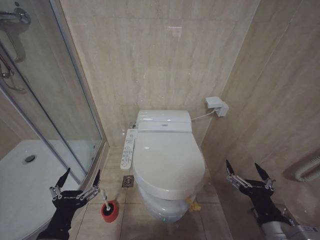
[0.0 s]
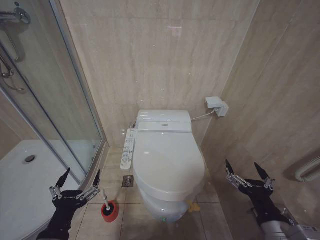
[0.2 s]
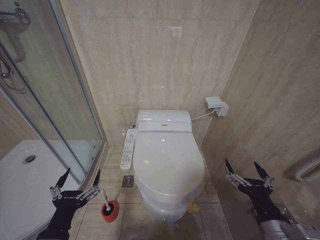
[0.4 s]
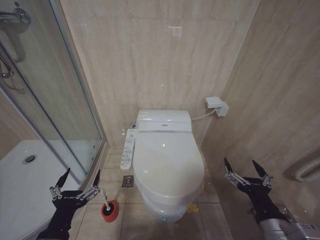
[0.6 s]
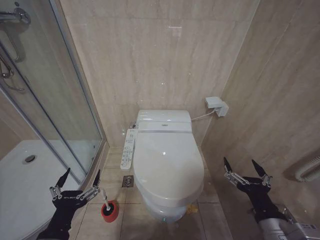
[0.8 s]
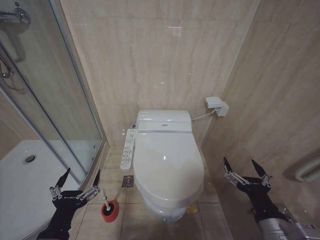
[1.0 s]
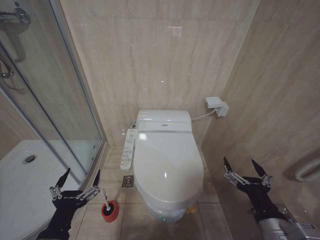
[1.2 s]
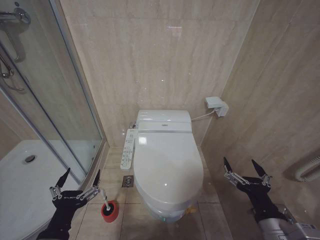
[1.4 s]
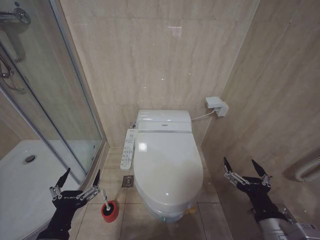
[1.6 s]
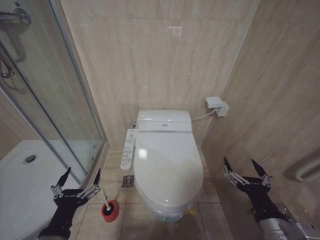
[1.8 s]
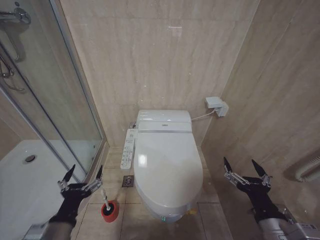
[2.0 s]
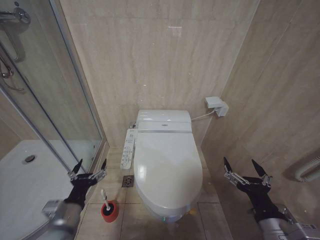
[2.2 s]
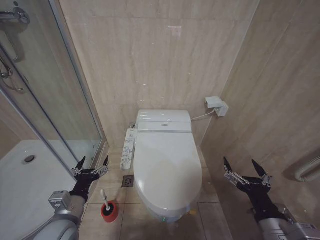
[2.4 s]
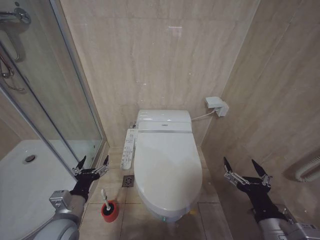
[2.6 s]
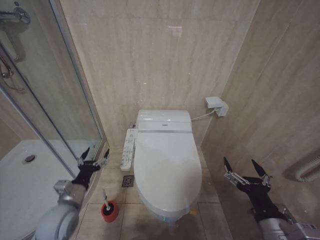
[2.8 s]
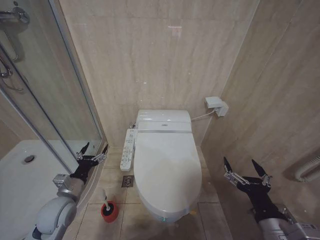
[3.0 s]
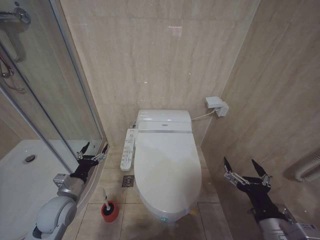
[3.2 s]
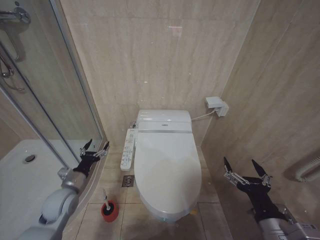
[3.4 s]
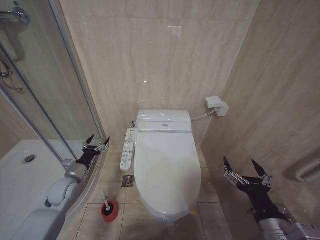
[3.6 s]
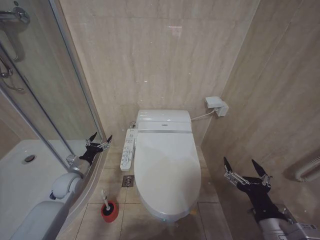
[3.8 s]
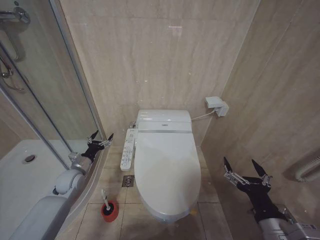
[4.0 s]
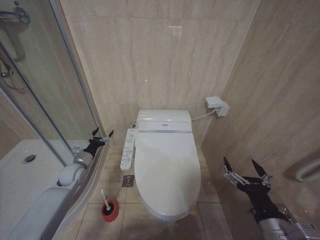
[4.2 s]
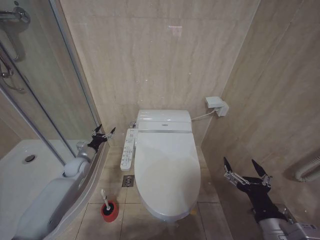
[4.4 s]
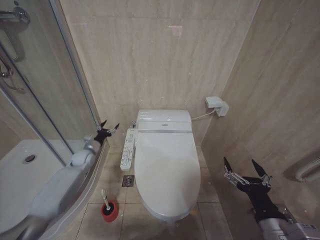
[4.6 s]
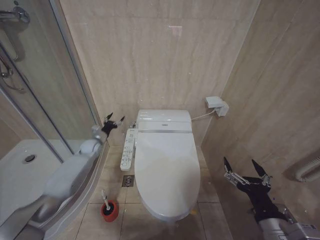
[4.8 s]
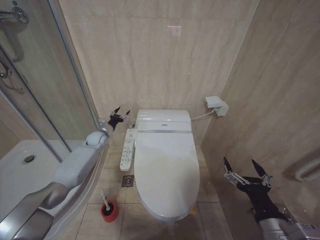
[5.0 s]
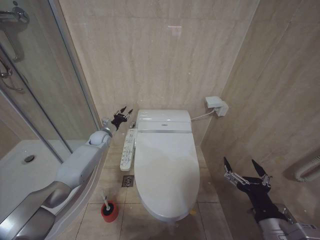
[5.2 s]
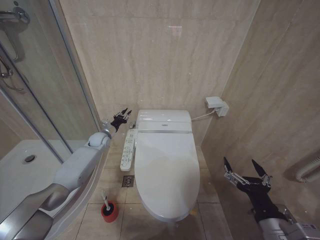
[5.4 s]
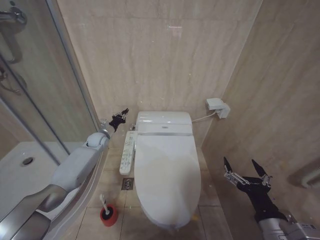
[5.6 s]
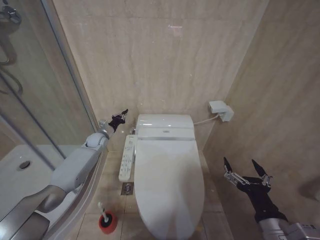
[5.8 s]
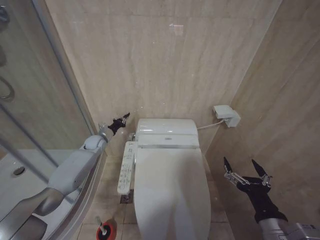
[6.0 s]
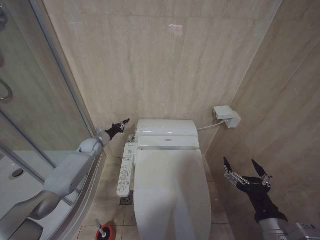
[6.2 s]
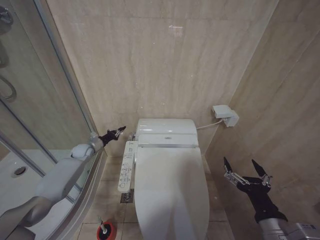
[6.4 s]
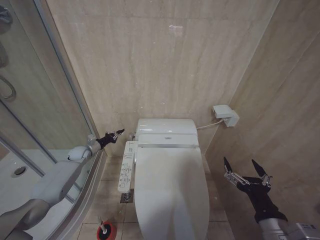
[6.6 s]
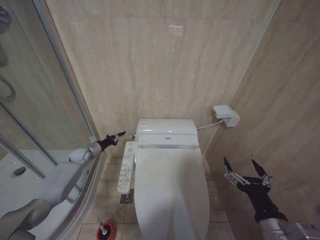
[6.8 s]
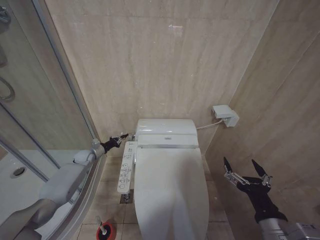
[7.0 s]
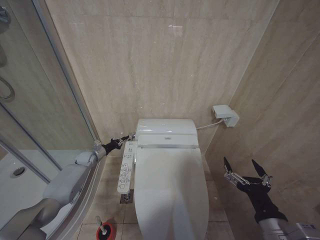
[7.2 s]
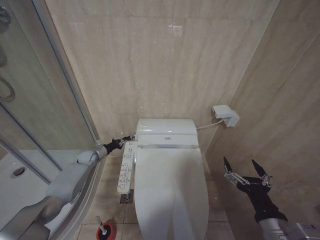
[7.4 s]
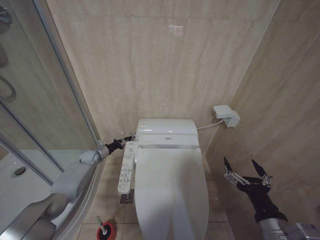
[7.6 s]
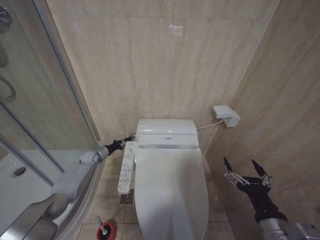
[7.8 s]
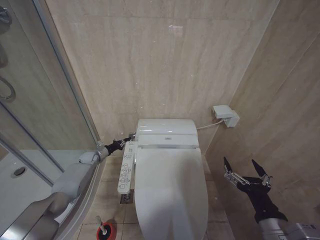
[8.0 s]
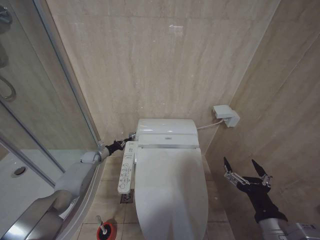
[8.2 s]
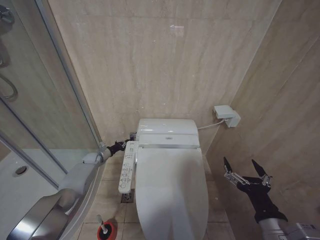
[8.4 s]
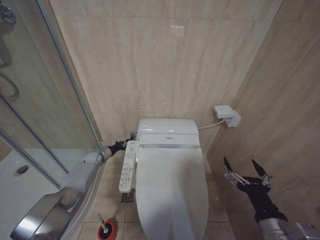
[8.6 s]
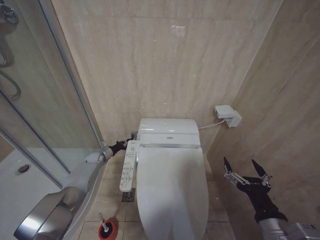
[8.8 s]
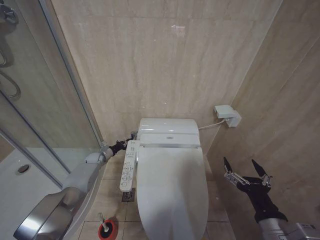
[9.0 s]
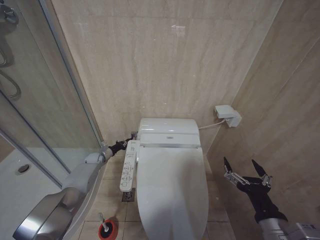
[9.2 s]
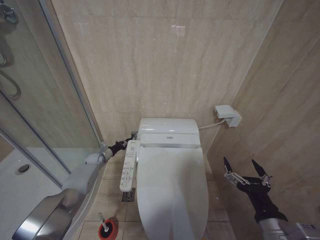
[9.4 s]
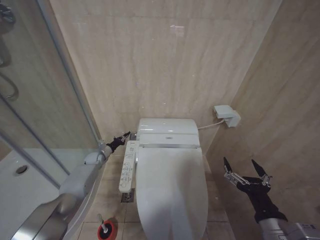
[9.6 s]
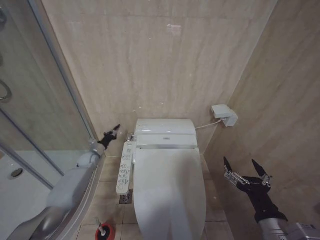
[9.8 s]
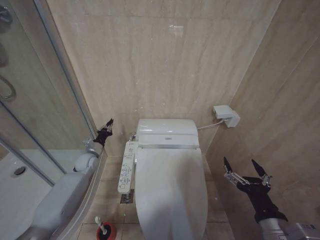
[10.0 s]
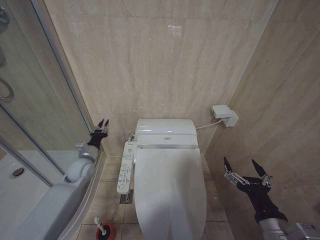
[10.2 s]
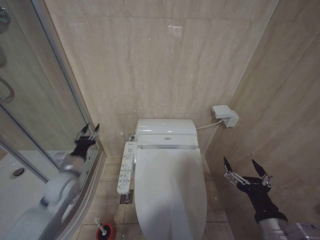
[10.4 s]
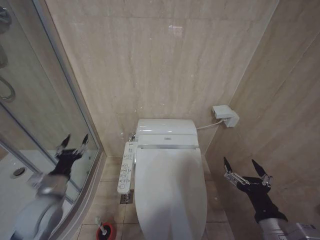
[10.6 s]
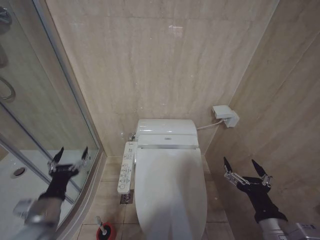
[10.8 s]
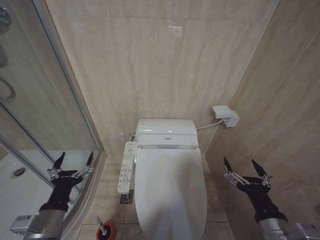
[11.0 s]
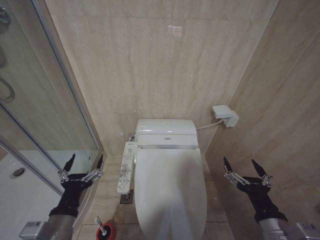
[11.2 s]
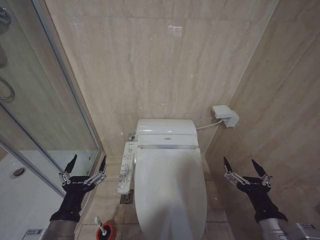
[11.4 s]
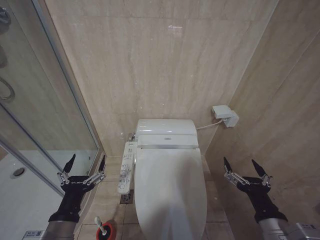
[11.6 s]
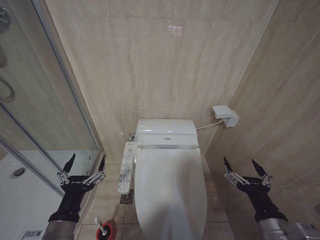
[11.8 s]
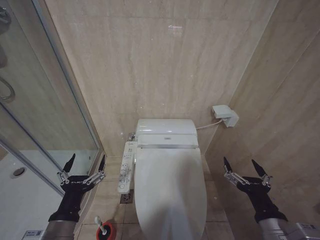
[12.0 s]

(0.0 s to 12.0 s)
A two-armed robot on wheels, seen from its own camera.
Task of the whole recording: Open the toilet lid, clean the toilet bowl with a toilet brush, close the toilet lid, and flush.
0.0 s - 1.6 s: Both grippers stay about where they are.
1.6 s - 3.0 s: The left gripper shifts some 15 cm forward.
3.0 s - 4.4 s: The left gripper is displaced forward by about 20 cm.
4.4 s - 6.0 s: The left gripper moves forward, to the right and upward, about 15 cm, and closes its fingers.
6.0 s - 7.6 s: The left gripper goes approximately 10 cm downward and to the left.
7.6 s - 9.0 s: The grippers make only small movements.
9.0 s - 10.4 s: The left gripper goes approximately 25 cm backward and upward.
10.4 s - 12.0 s: The left gripper heads backward, covering some 25 cm, and opens its fingers.

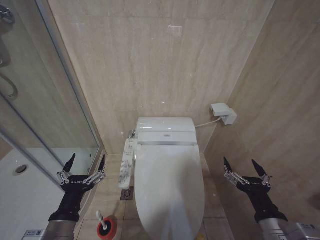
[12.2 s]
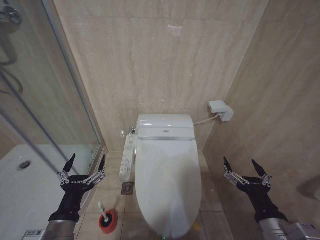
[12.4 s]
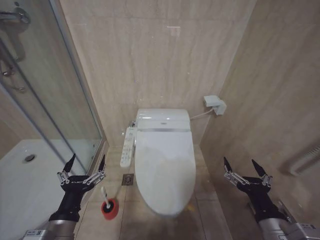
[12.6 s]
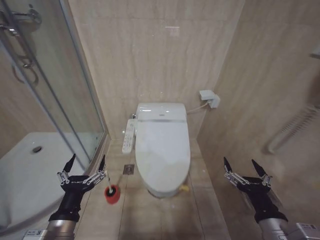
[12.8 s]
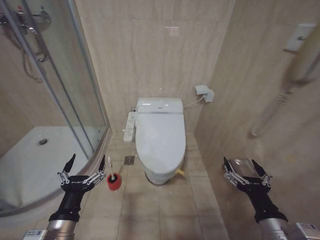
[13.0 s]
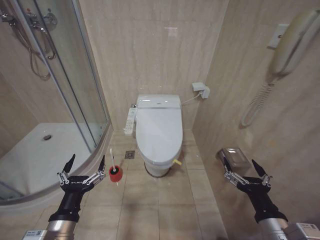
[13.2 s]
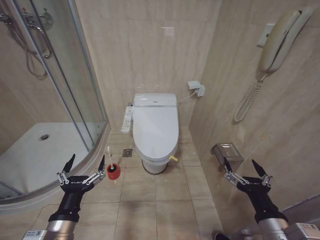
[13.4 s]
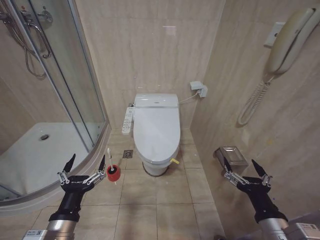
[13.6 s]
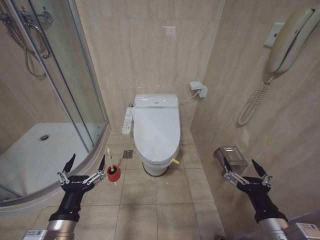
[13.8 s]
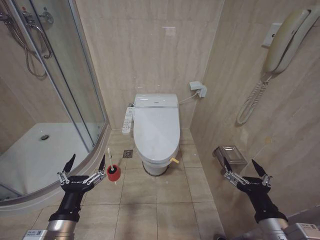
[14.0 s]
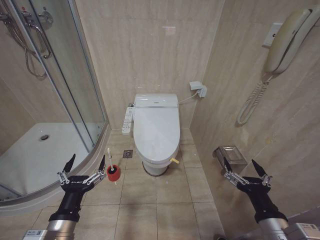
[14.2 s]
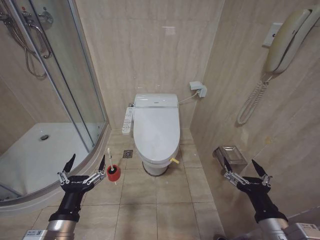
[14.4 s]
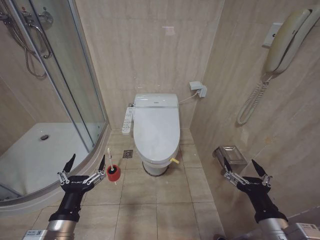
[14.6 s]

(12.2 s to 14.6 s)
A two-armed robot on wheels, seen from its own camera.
Task of the whole recording: Open the toilet lid, clean the toilet bowl with a toilet brush, close the toilet lid, and flush.
13.4 s - 14.6 s: Both grippers stay put.

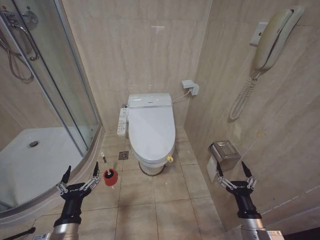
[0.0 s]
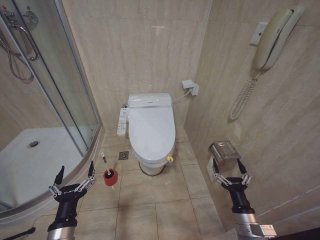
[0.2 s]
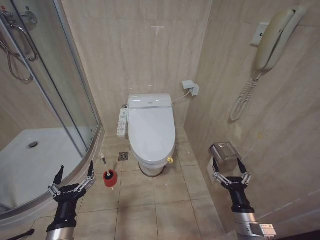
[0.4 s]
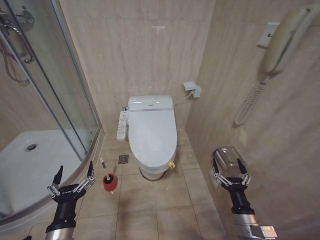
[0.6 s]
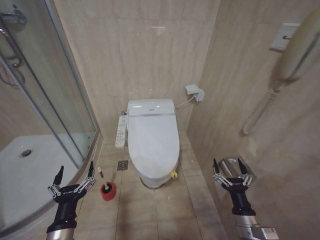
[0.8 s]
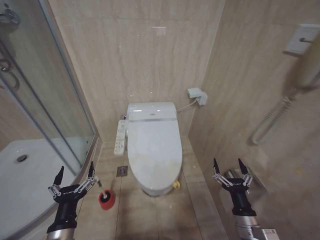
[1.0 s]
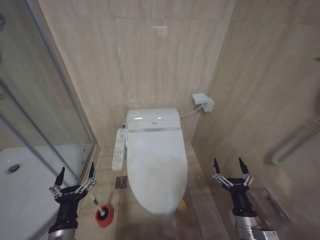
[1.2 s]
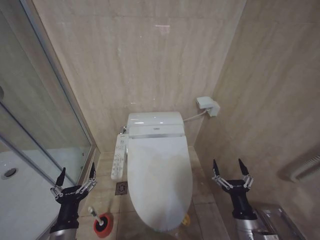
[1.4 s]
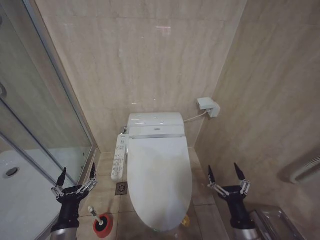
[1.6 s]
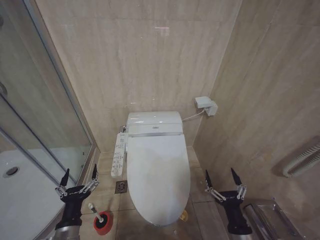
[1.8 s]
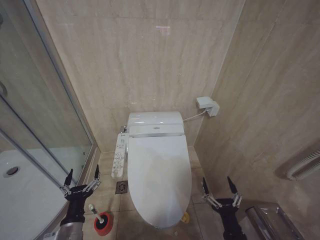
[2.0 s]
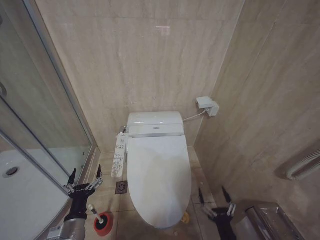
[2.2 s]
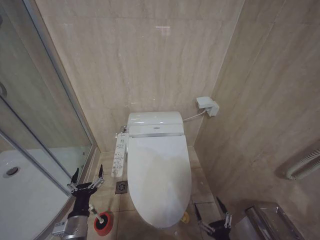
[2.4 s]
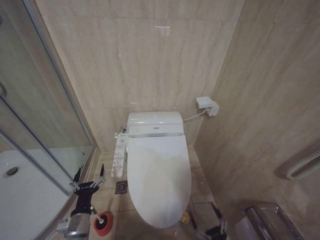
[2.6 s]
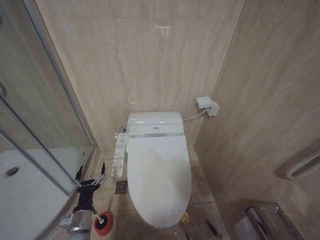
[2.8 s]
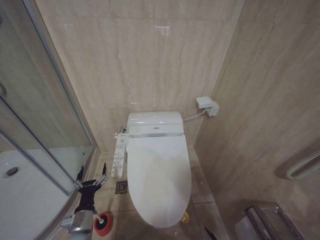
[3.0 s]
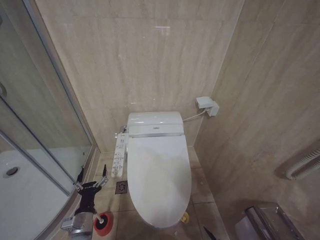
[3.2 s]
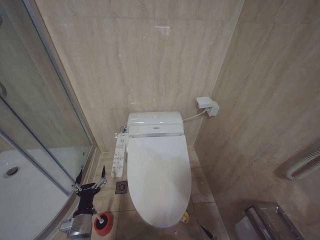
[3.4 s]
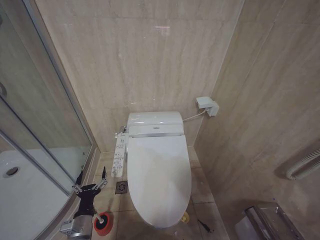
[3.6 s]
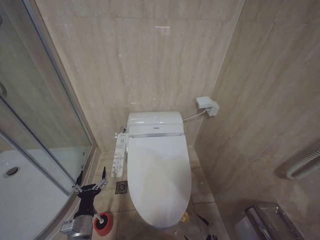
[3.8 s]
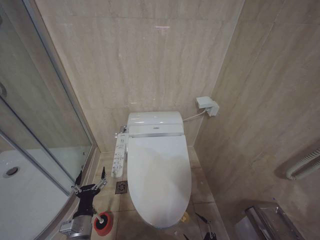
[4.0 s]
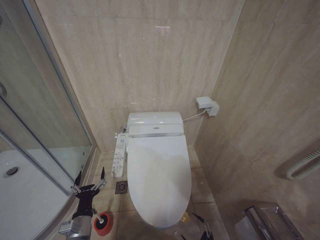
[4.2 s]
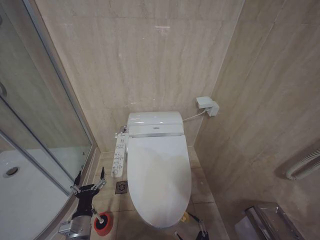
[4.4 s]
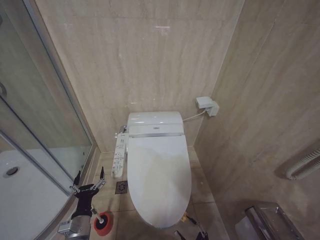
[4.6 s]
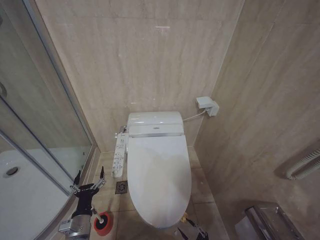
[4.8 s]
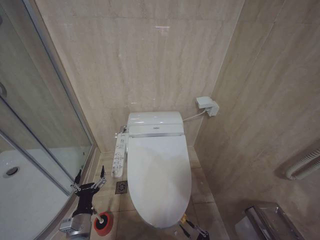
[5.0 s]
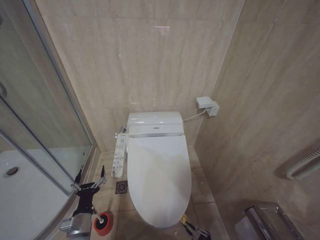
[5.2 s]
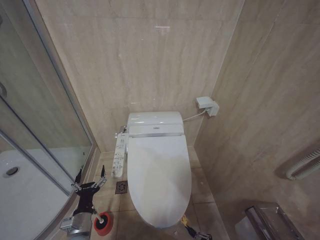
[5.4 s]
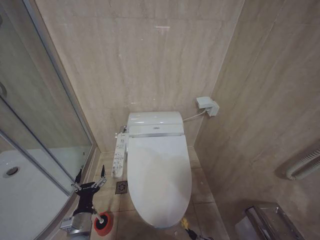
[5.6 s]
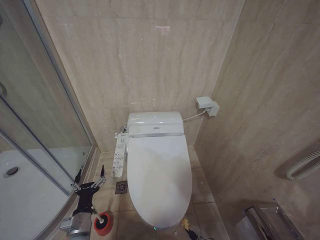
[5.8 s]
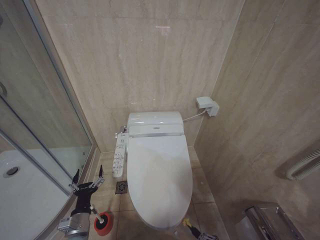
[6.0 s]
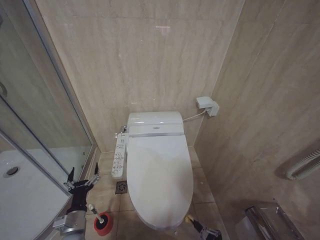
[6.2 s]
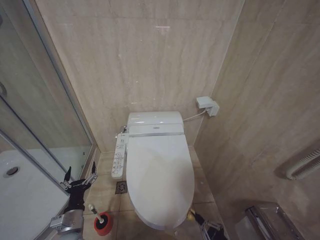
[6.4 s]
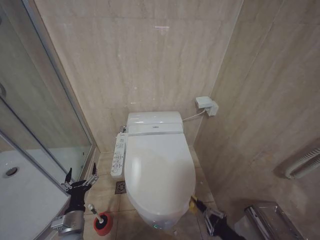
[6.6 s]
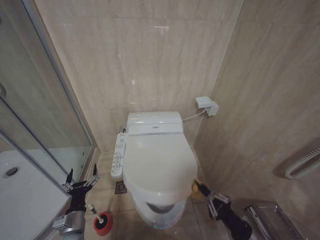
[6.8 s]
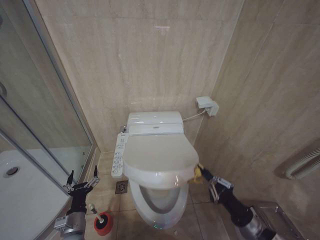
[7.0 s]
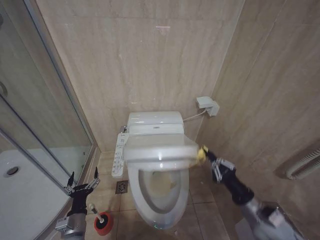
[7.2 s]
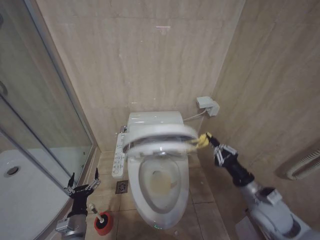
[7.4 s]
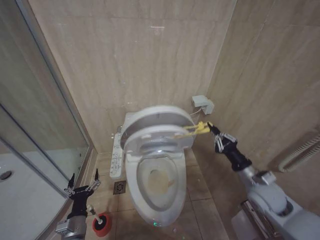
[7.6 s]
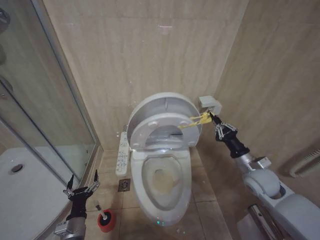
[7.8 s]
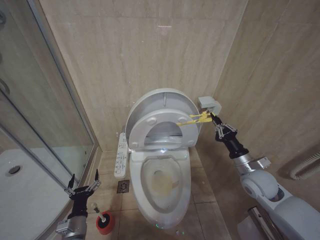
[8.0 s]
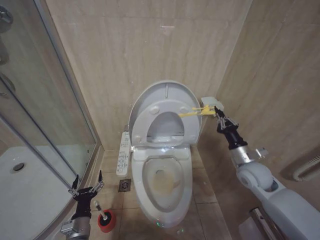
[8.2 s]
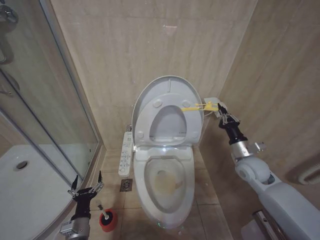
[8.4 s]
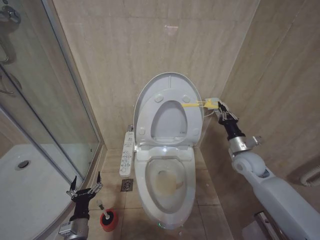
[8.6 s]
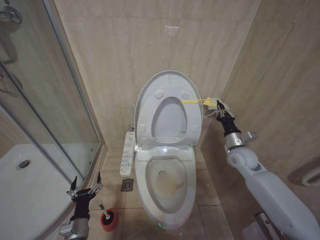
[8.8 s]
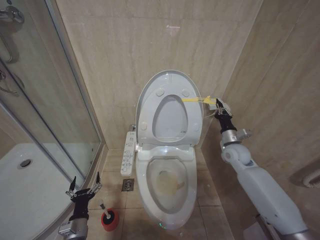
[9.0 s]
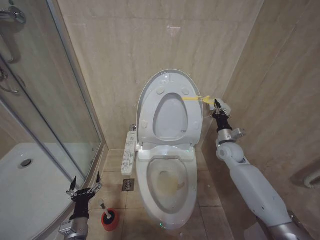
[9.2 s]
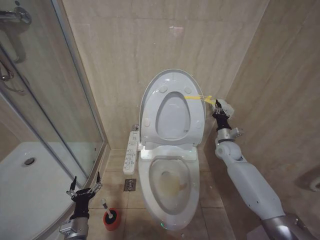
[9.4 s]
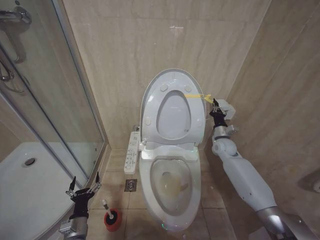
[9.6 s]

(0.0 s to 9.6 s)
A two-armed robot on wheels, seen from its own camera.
Task of the whole recording: Open the toilet lid, clean the toilet bowl with a toilet brush, close the toilet lid, and flush.
1.6 s - 3.2 s: The right gripper heads downward and backward, covering approximately 20 cm, while the left gripper shifts about 10 cm downward and forward.
4.8 s - 6.4 s: The right gripper travels upward by some 10 cm, and closes its fingers.
6.4 s - 8.0 s: The right gripper travels forward and upward by about 35 cm.
8.0 s - 9.6 s: The right gripper heads forward, covering approximately 15 cm.
